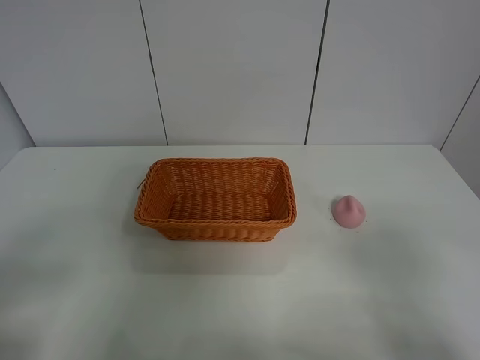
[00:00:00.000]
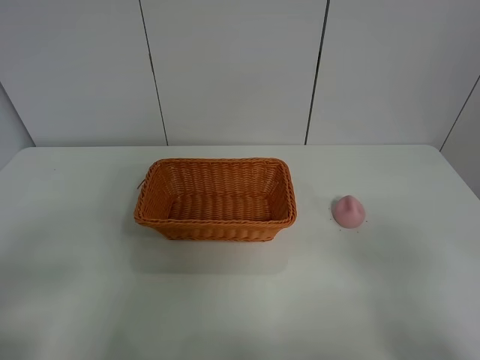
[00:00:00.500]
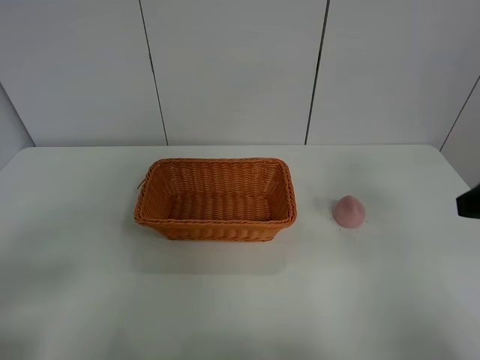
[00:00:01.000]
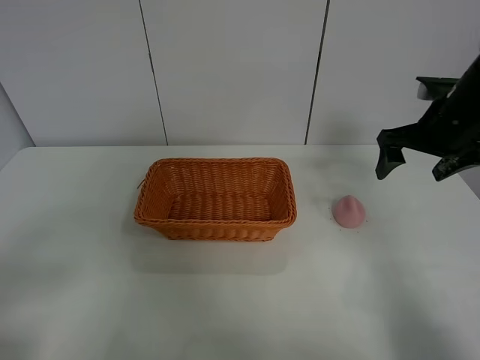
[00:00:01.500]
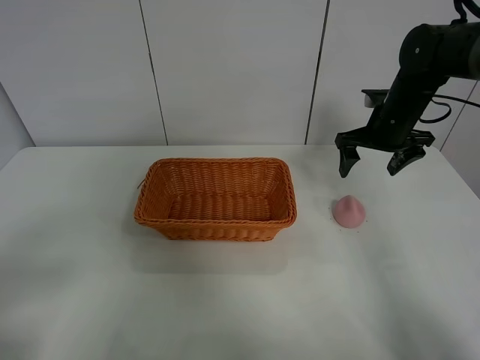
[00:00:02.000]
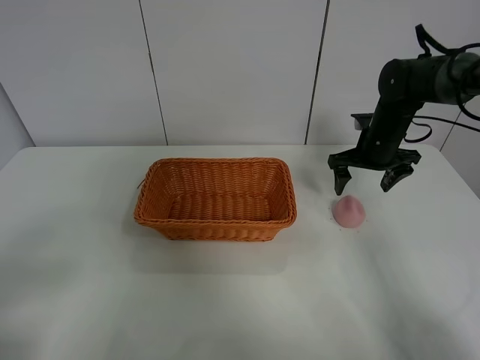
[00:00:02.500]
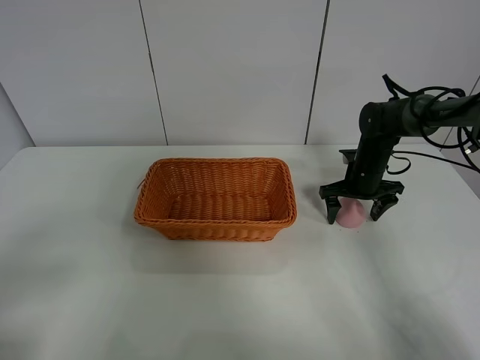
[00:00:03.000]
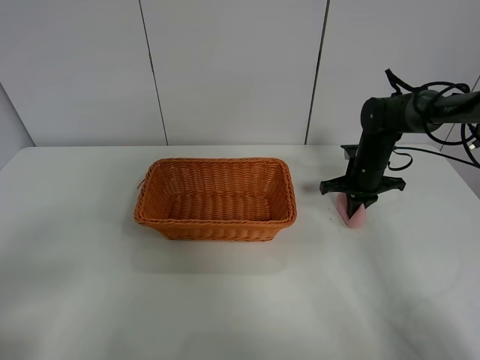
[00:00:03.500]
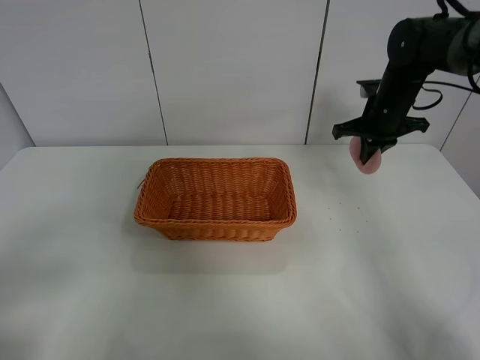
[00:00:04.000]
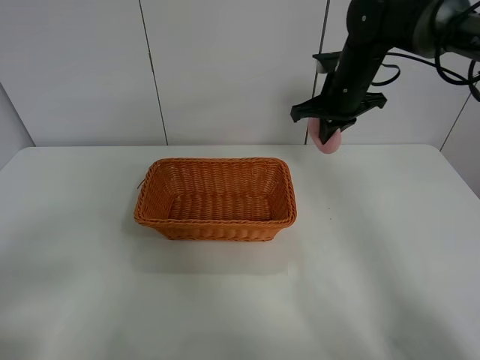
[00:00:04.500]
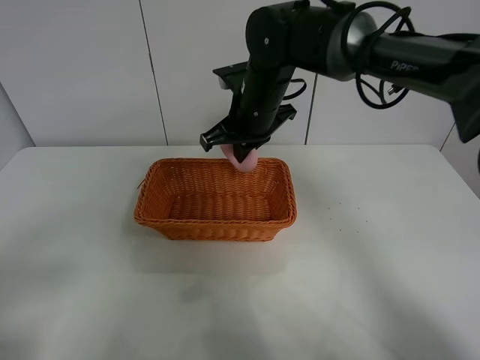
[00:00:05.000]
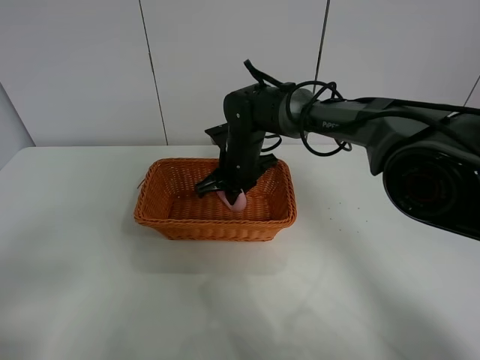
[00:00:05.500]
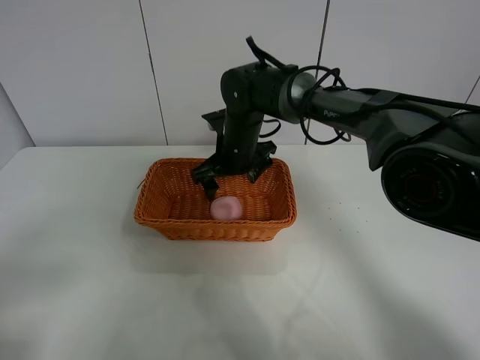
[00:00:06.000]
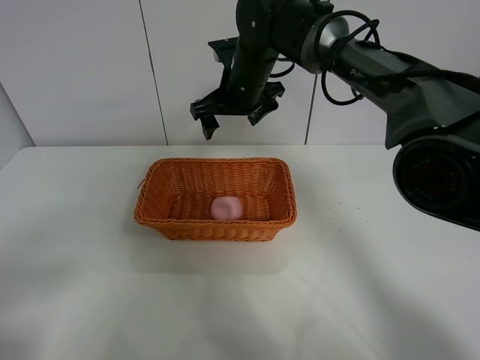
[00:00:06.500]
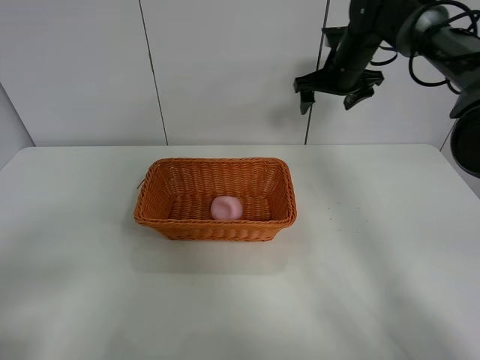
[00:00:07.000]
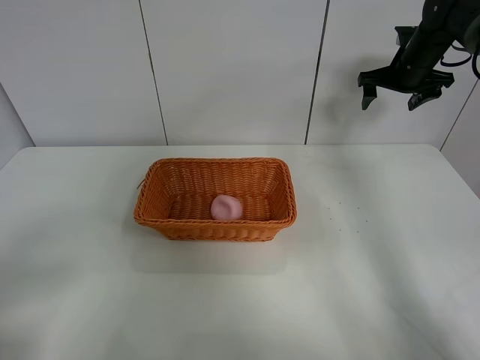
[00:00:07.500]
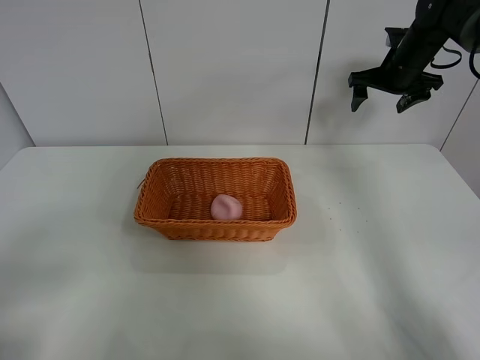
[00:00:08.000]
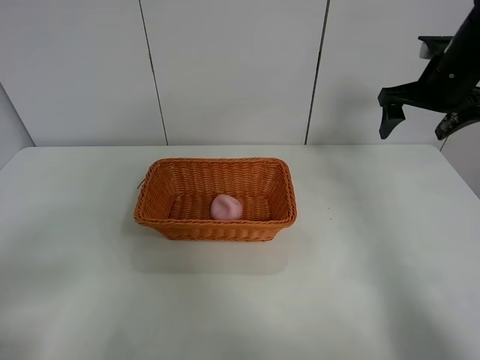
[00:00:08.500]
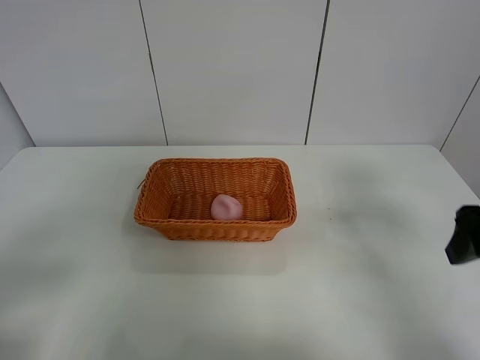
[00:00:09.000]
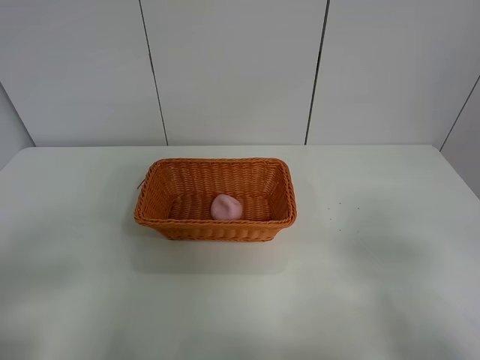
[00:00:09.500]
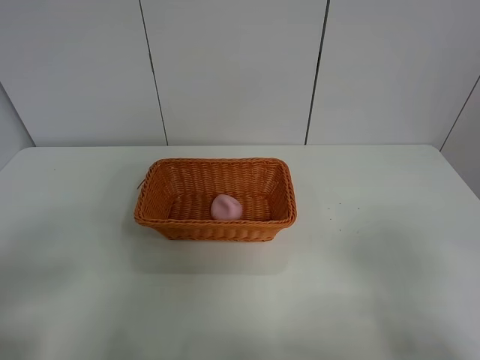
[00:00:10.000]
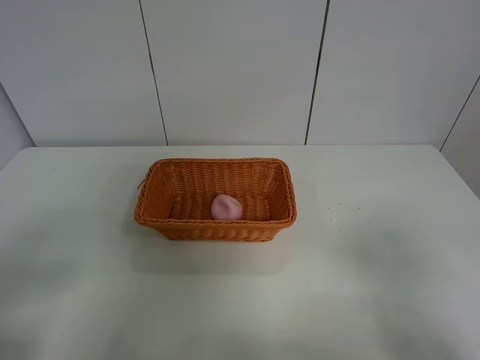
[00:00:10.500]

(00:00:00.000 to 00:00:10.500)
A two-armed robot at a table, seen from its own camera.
Step, 00:00:00.000 - 00:00:03.500: Grasp the peach with right gripper.
Step, 00:00:04.000 - 00:00:06.000: Place the peach in the basket with right gripper.
00:00:00.000 - 00:00:02.000: The right gripper is displaced forward by some 40 cm.
00:00:02.000 - 00:00:04.000: The right gripper reaches about 10 cm downward, then returns, and closes its fingers.
00:00:04.000 - 00:00:06.500: The right gripper is displaced to the left by some 20 cm, and opens its fingers.
00:00:06.500 - 00:00:08.500: The right gripper heads to the right, covering approximately 25 cm.
00:00:08.500 - 00:00:10.500: The right gripper travels backward by about 35 cm.

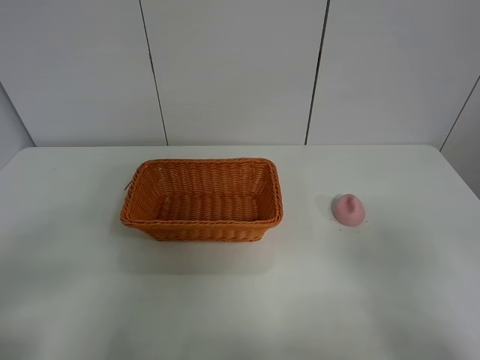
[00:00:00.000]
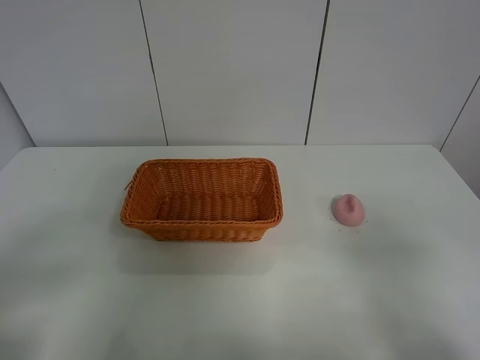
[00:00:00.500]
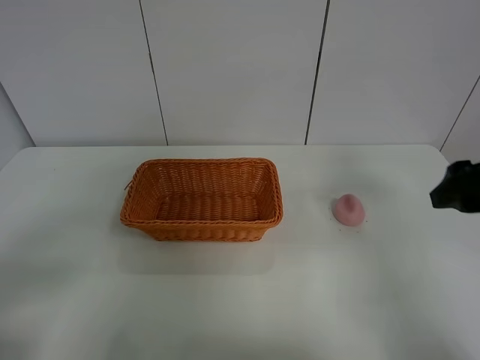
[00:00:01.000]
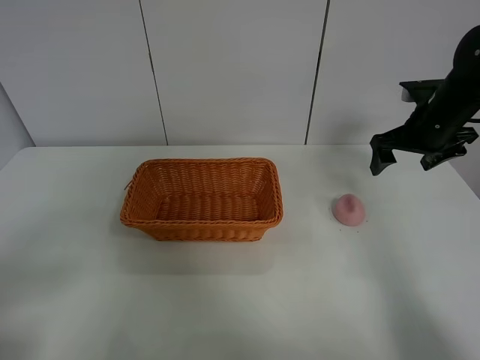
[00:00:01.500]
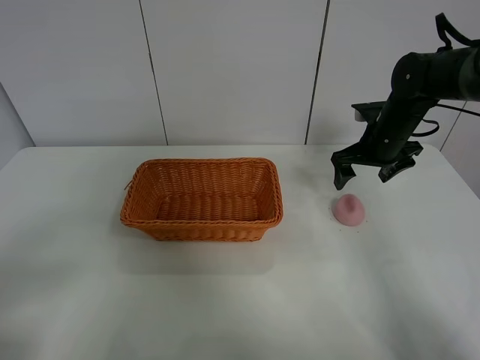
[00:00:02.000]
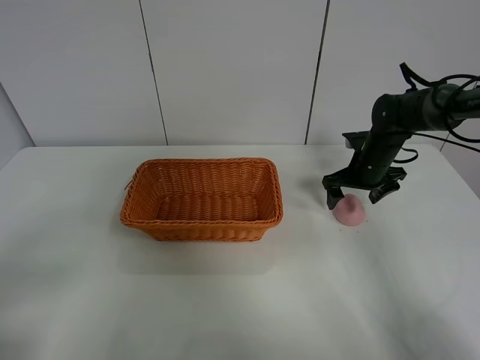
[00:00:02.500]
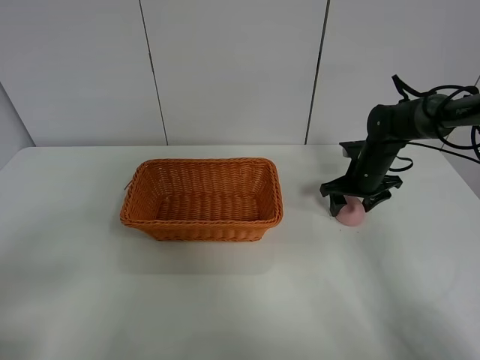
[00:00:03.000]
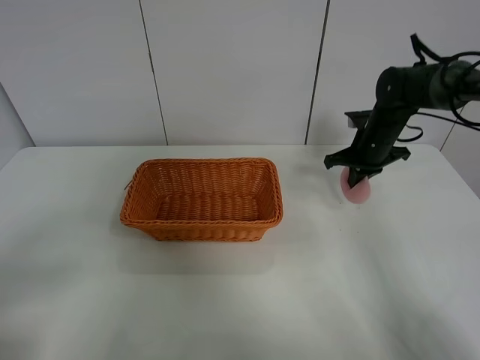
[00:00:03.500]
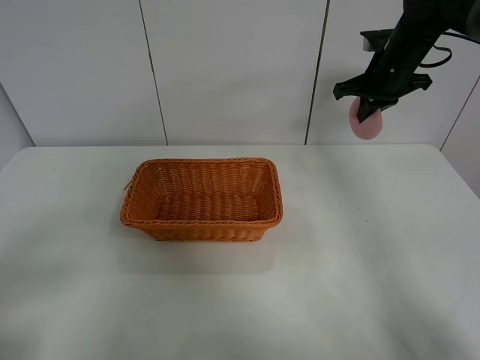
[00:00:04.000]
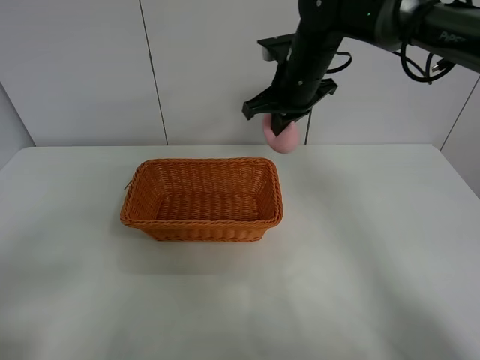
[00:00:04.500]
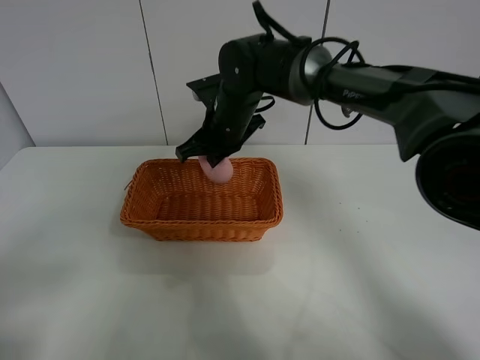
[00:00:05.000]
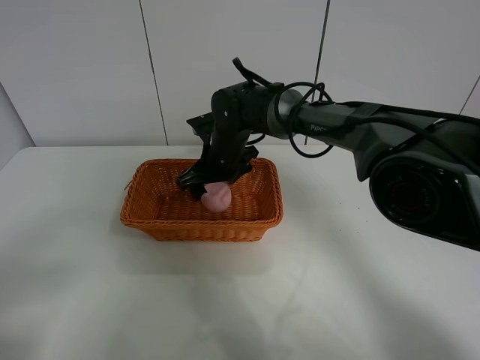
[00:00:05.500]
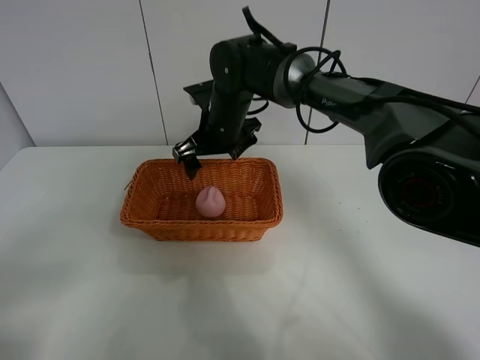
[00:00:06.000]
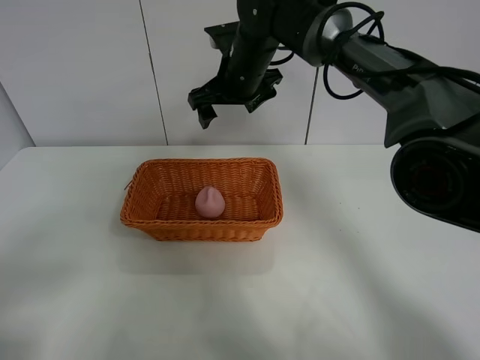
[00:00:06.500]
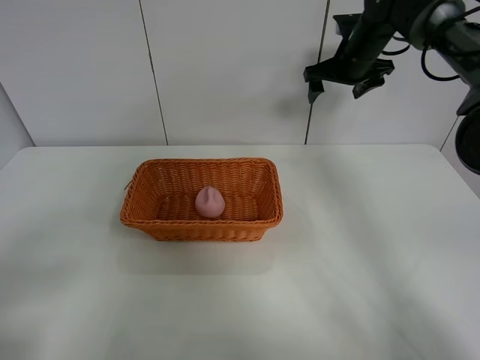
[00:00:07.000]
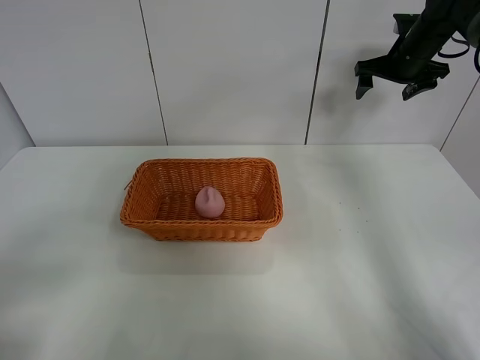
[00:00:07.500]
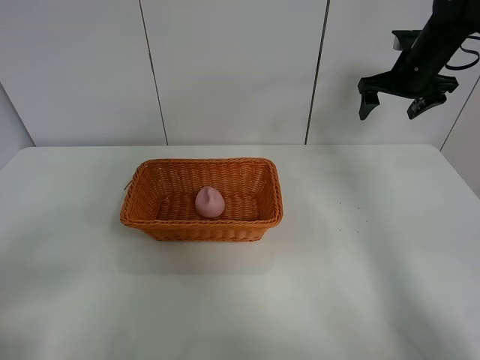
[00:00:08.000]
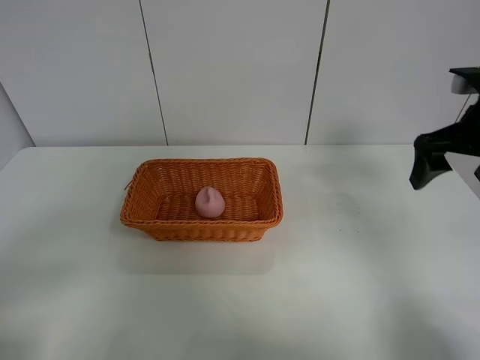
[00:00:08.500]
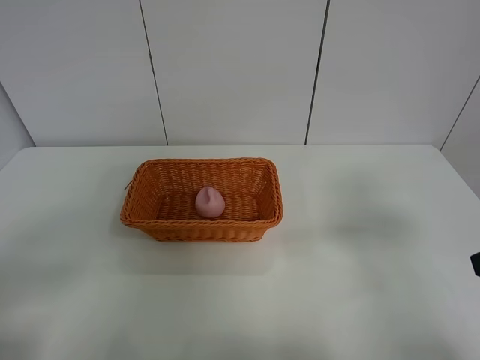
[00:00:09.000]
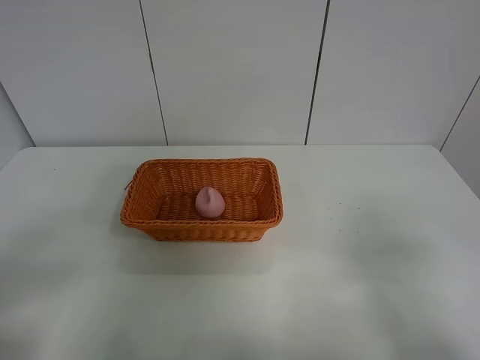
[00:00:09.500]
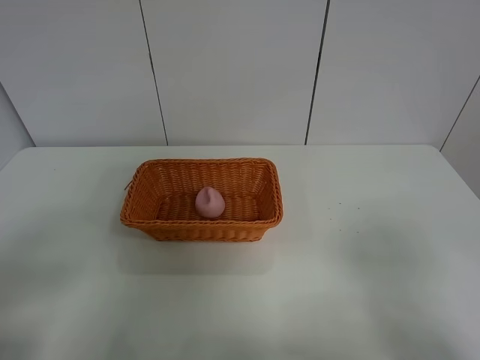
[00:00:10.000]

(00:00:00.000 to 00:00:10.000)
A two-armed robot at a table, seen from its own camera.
Step, 00:00:00.000 - 00:00:03.000: Grasp the peach with right gripper.
Step, 00:00:03.500 - 00:00:06.000: Place the peach in the basket with right gripper.
00:00:00.000 - 00:00:02.000: The right gripper heads forward, covering approximately 40 cm.
00:00:02.000 - 00:00:04.000: The right gripper travels upward by roughly 10 cm, and closes up.
00:00:04.000 - 00:00:06.000: The right gripper goes about 25 cm to the left, and opens.
00:00:06.000 - 00:00:08.000: The right gripper shifts about 30 cm to the right.
00:00:08.000 - 00:00:10.000: The right gripper travels backward by approximately 50 cm.
